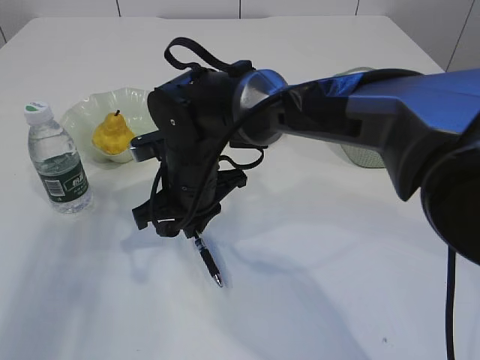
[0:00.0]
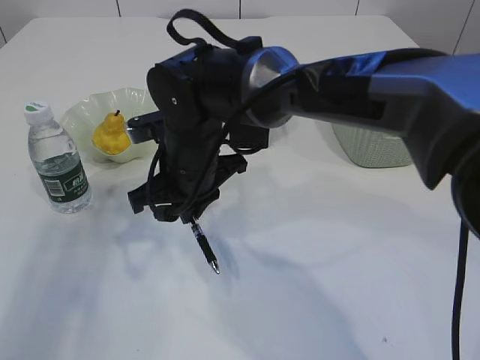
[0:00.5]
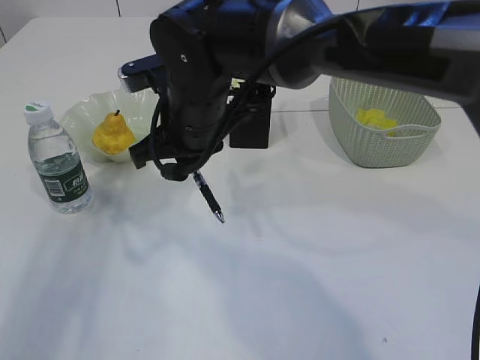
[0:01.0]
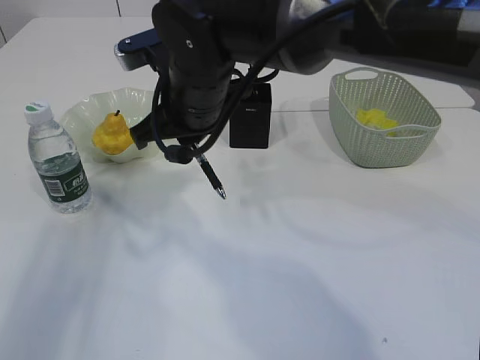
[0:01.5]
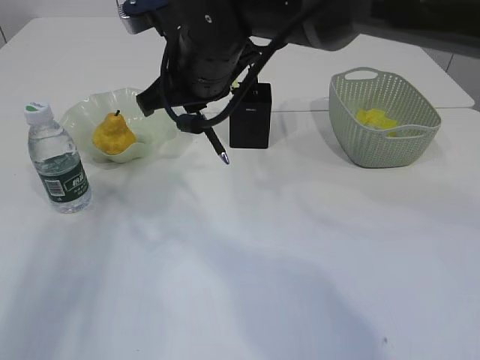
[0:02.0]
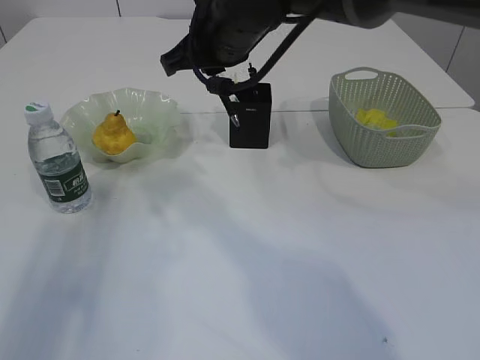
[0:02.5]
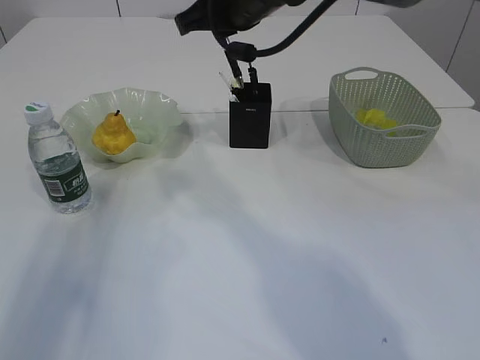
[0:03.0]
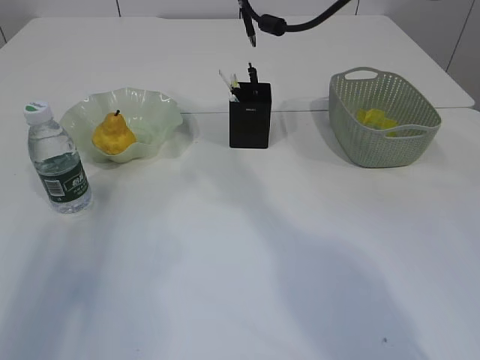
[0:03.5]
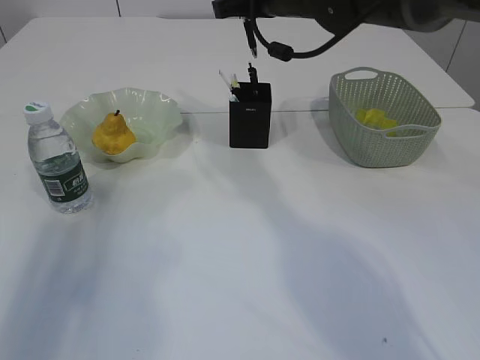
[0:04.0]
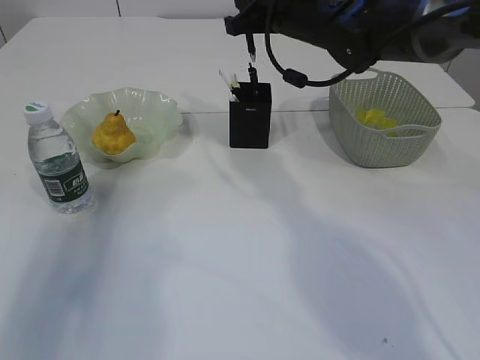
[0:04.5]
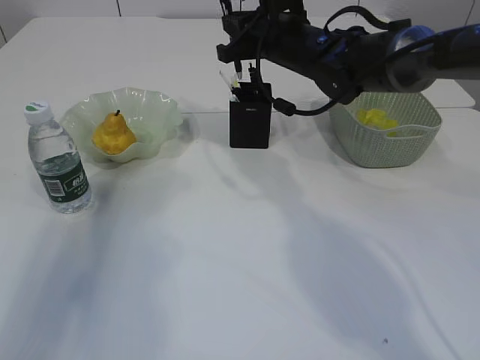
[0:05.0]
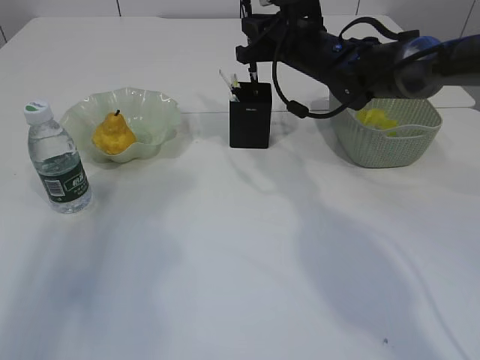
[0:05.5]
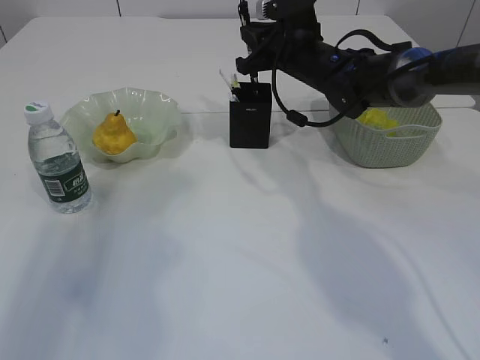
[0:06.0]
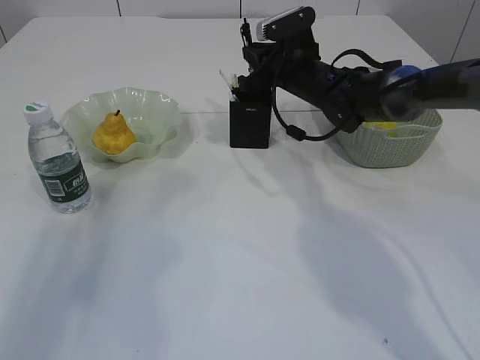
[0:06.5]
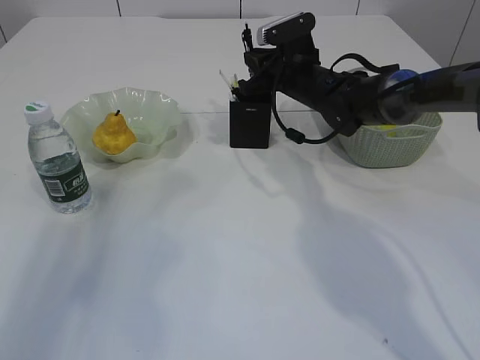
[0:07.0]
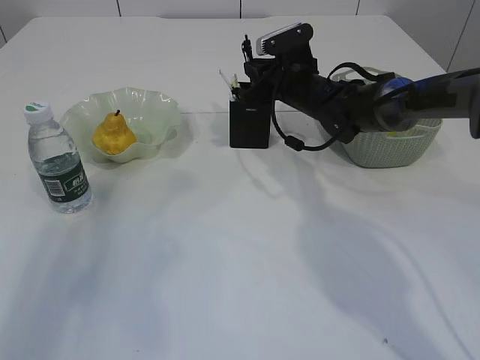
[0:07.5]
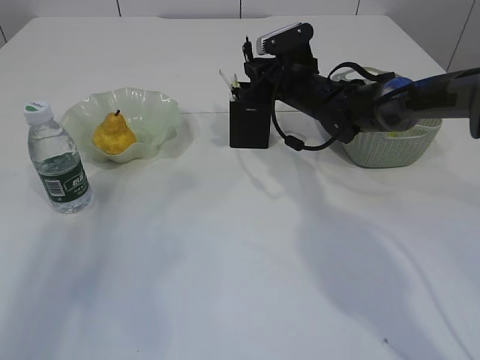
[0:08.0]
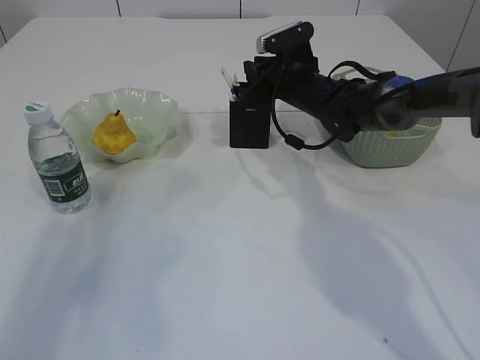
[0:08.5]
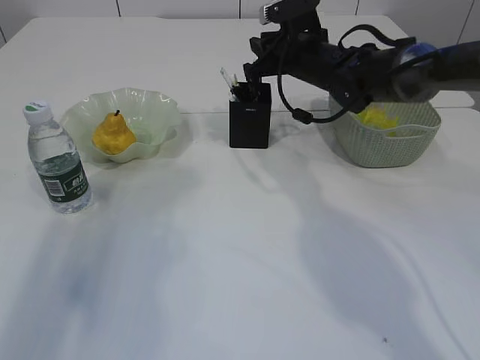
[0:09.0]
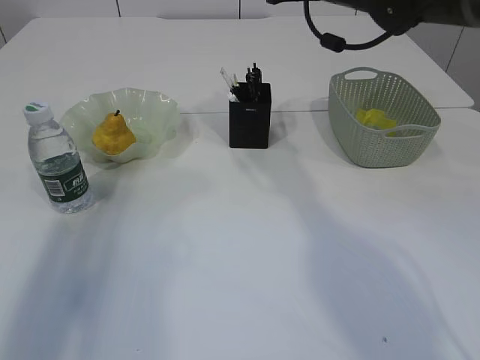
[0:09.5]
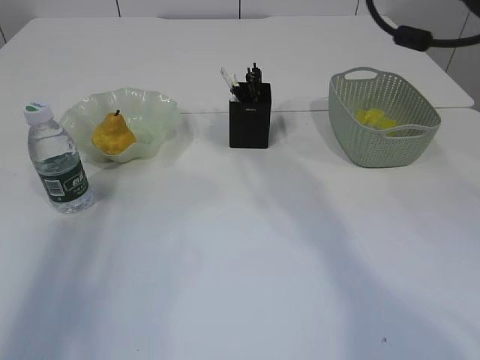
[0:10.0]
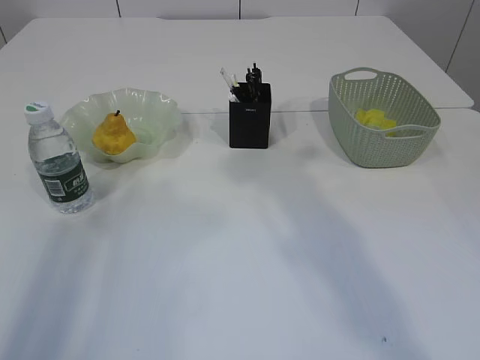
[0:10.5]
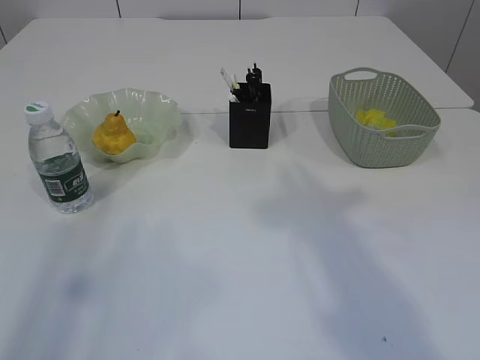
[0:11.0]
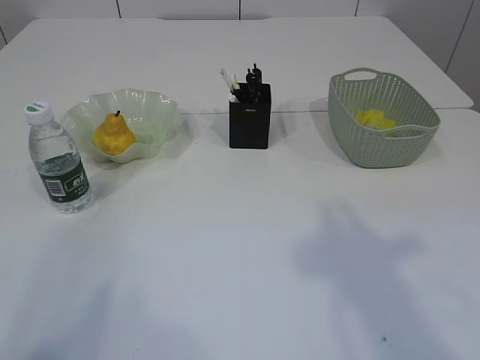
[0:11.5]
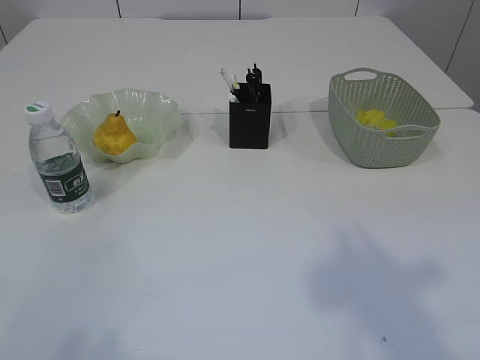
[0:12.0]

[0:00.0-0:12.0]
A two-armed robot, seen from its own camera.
Step, 0:00.5 to 0:09.0: Place the pen into the pen holder.
0:00.0 to 0:02.0: The right gripper shifts roughly 15 cm upward.
0:02.0 to 0:04.0: The right gripper goes about 15 cm to the right and forward.
0:04.0 to 0:06.0: The right gripper moves downward, about 10 cm.
0:06.0 to 0:08.0: The right gripper travels downward by approximately 5 cm.
0:08.0 to 0:10.0: The right gripper goes about 25 cm upward and backward. Meanwhile the left gripper moves roughly 5 cm.
0:10.0 to 0:12.0: Both grippers travel together backward, roughly 25 cm.

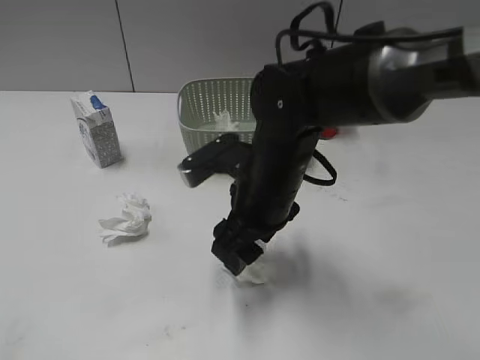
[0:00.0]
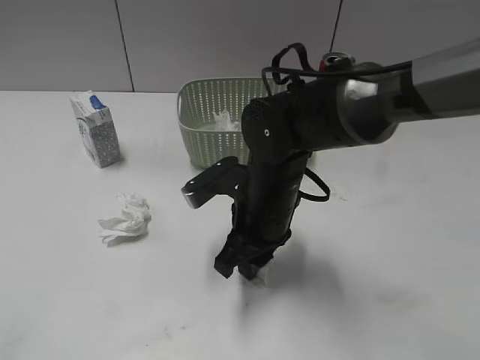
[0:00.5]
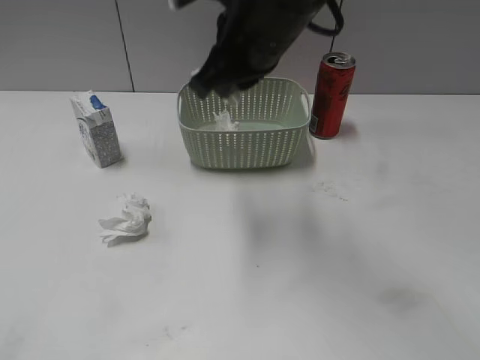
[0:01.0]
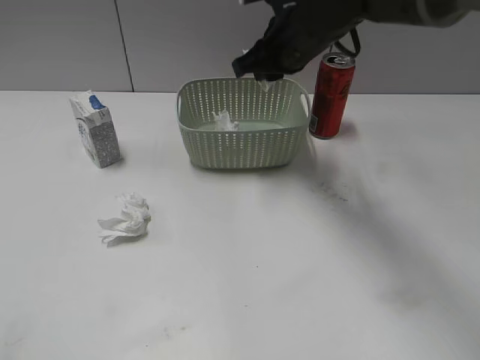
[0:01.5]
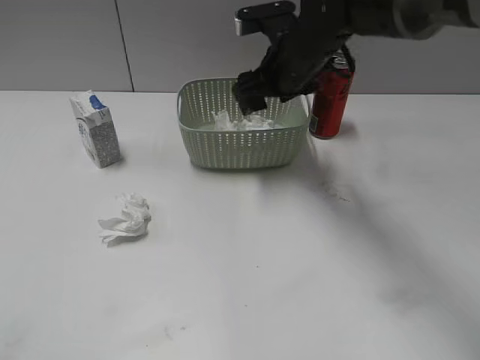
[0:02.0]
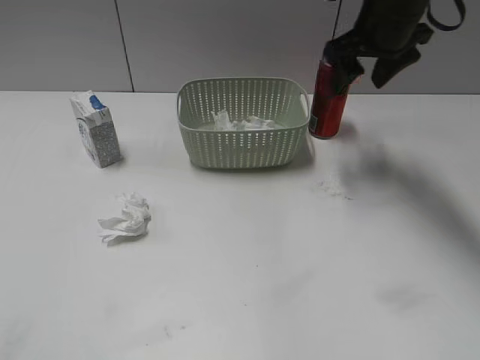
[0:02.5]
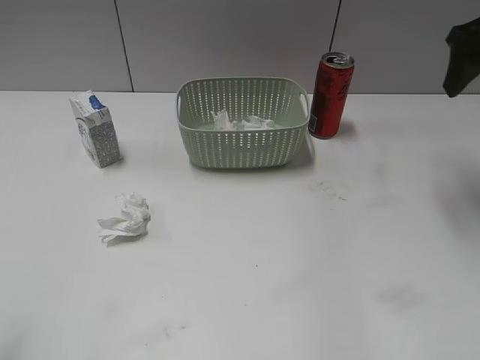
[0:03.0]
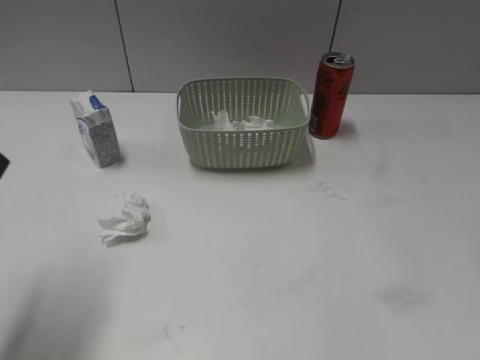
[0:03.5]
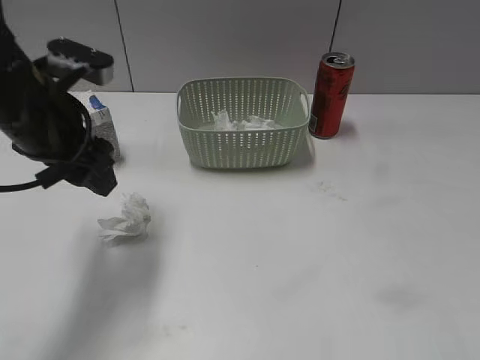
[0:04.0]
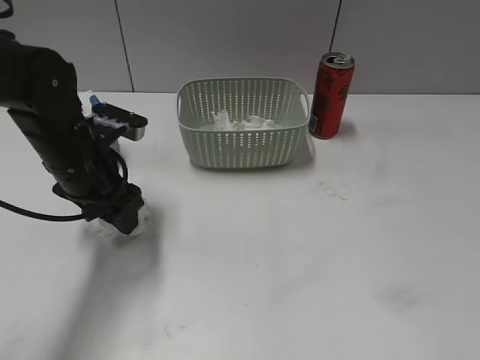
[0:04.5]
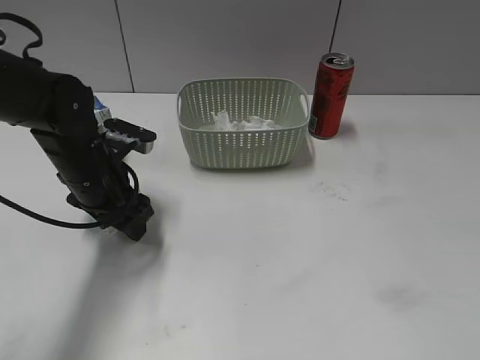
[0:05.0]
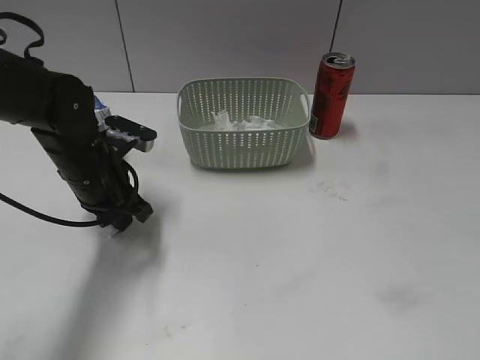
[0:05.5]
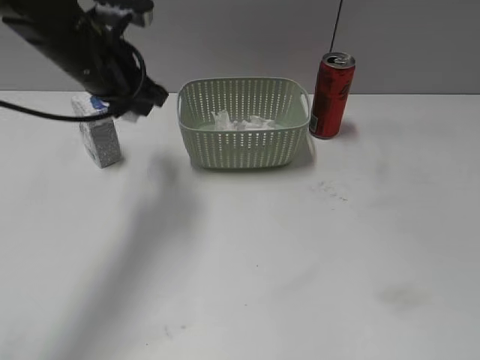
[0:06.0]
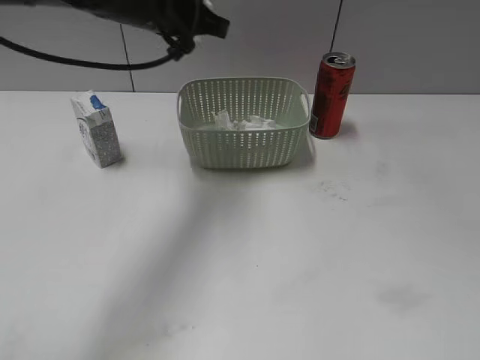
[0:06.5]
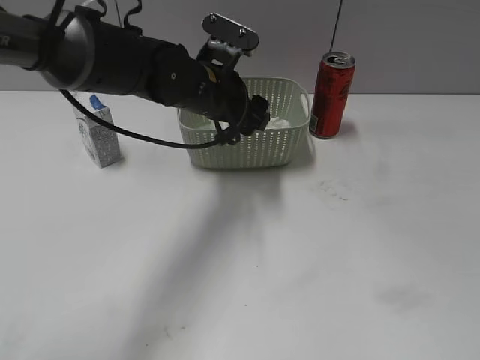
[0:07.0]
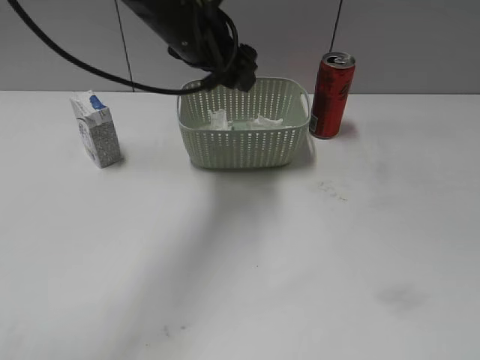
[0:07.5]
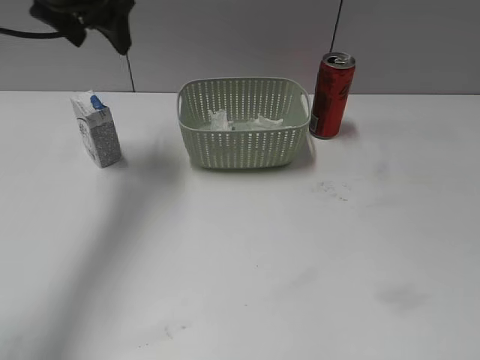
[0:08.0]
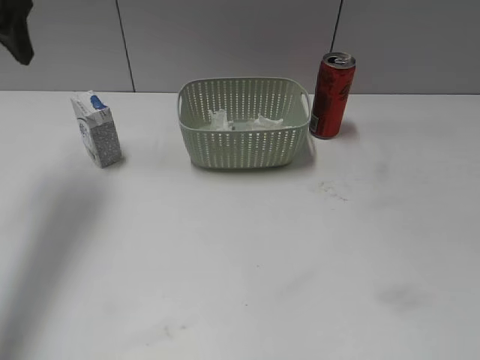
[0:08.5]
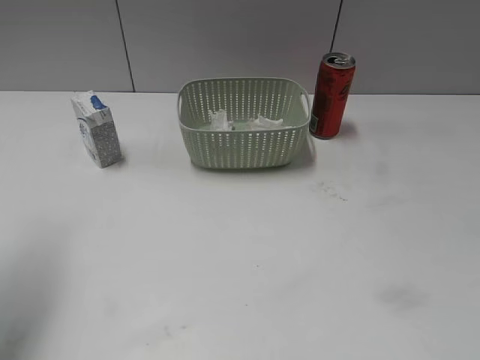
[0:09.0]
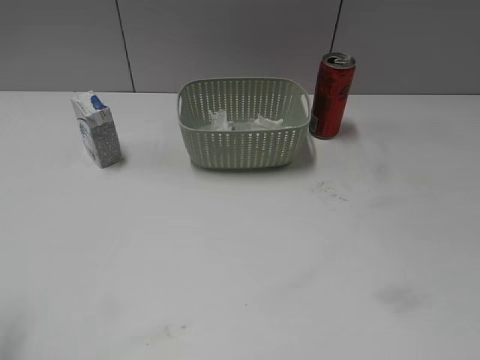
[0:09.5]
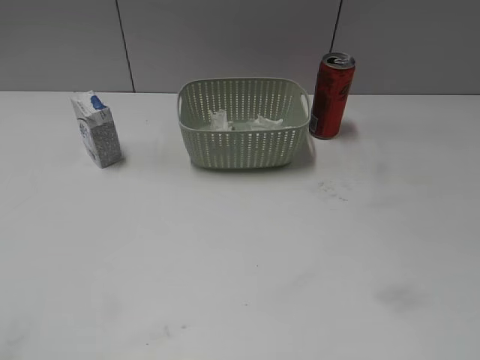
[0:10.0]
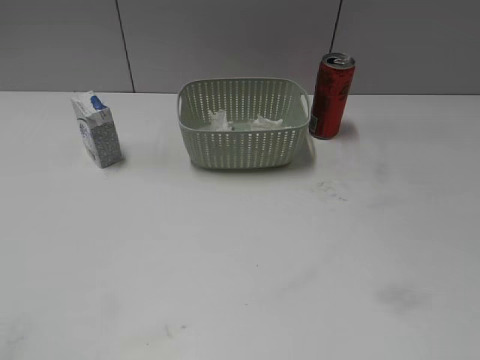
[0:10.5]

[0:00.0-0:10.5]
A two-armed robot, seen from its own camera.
Step, 0:01.0 to 0:02.0: Place the waste paper in the basket with right gripper.
Step, 0:02.5 to 0:05.5: Grasp the waste paper with left gripper.
Step, 0:06.0 to 0:07.0: Place the waste paper in the basket with left gripper.
0:00.0 to 0:02.0: The right gripper moves up and down over some 15 cm, changing direction 2 times, and closes and opens again.
0:02.0 to 0:04.0: The right gripper shifts about 35 cm backward and to the right. Meanwhile the left gripper shifts roughly 30 cm forward and to the right.
0:04.0 to 0:06.5: The right gripper travels backward by about 15 cm, while the left gripper is displaced forward and to the right by approximately 15 cm, reaches some 10 cm downward, then returns, and closes its fingers.
0:06.5 to 0:08.5: The left gripper goes about 15 cm to the left, and opens.
0:08.5 to 0:10.5: The left gripper shifts approximately 35 cm backward.

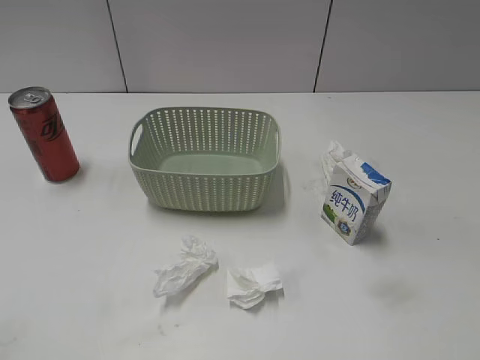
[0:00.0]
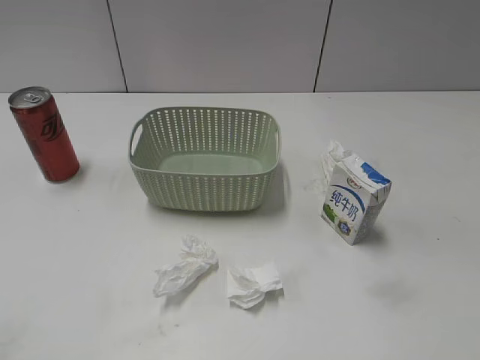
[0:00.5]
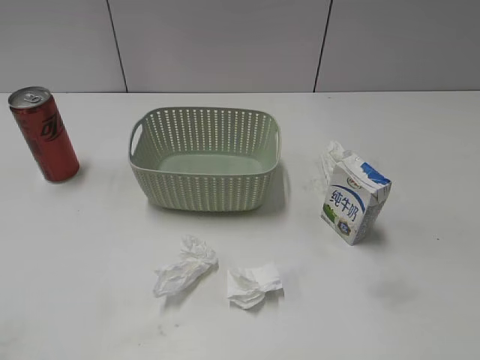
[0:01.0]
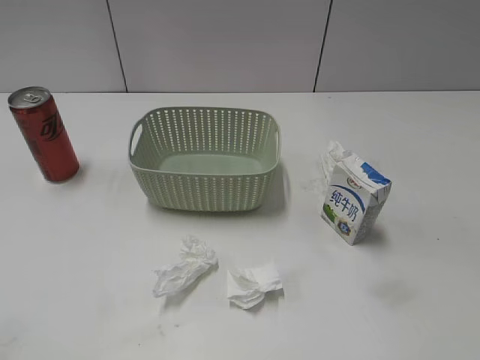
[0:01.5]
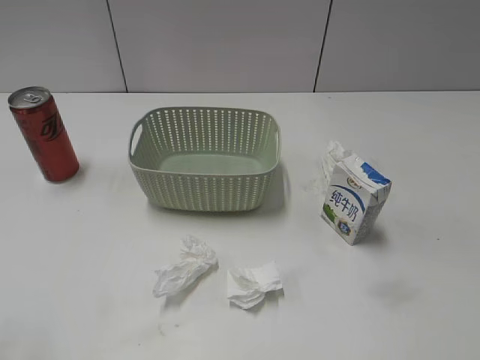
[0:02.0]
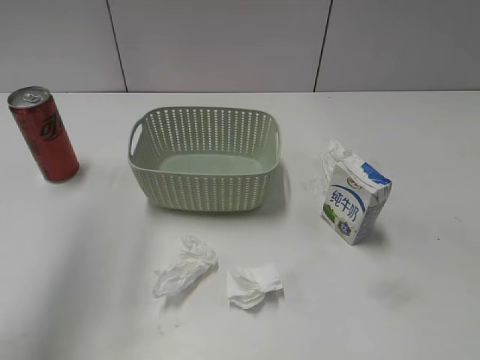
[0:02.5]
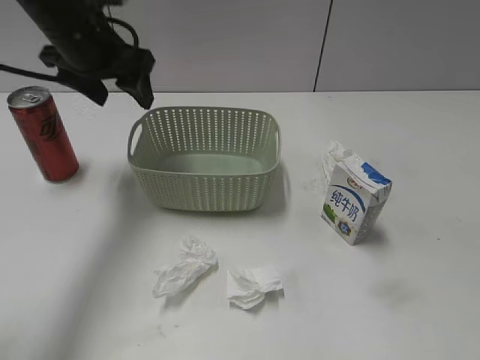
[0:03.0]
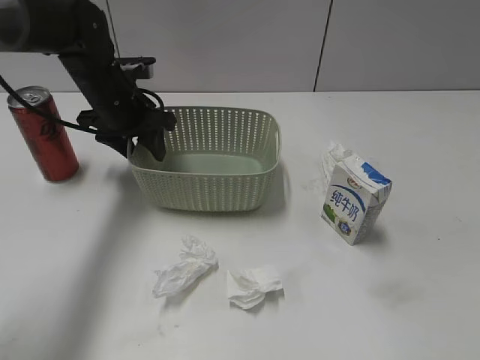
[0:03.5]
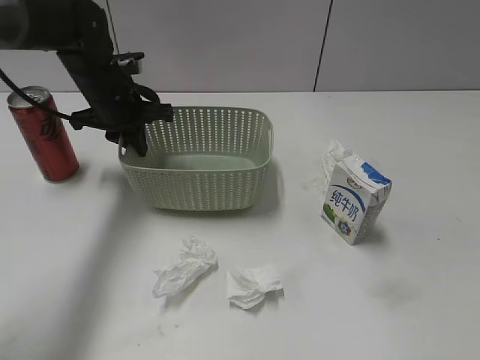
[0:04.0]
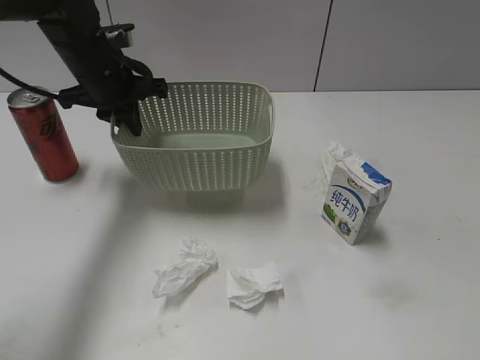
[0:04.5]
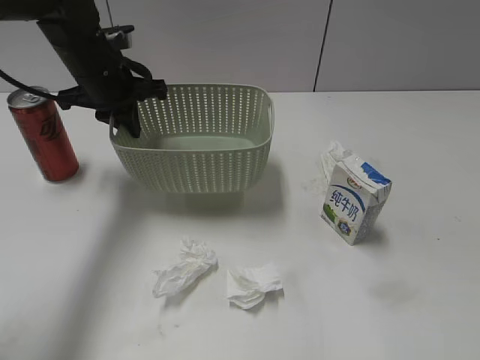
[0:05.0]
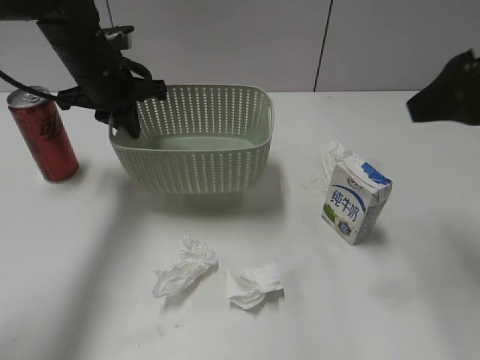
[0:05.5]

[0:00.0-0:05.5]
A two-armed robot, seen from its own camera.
Step, 0:03.0 to 0:03.5: Grasp the basket with left gripper.
Step, 0:04.0 to 0:04.5: Lift the basket with left gripper.
0:02.0 to 0:03.5: The left gripper goes approximately 40 cm forward and downward.
0:03.5 to 0:05.5: The left gripper closes its fingers, while the right gripper travels forward by roughly 25 cm.
